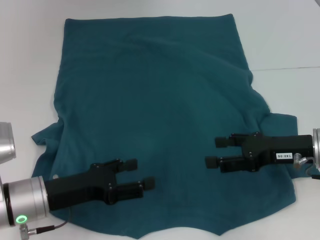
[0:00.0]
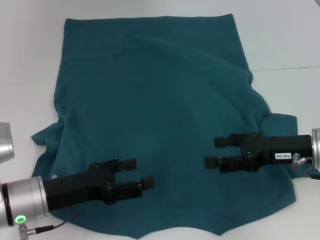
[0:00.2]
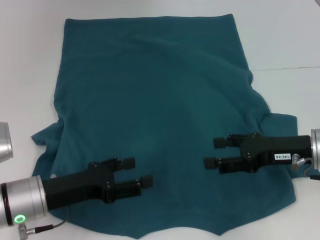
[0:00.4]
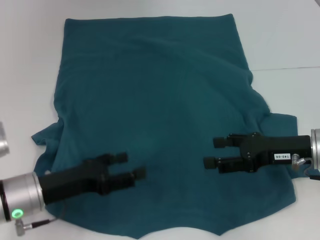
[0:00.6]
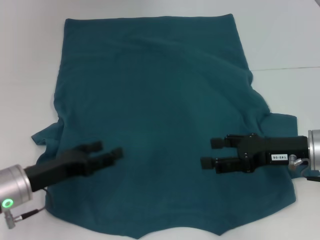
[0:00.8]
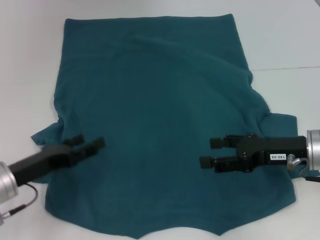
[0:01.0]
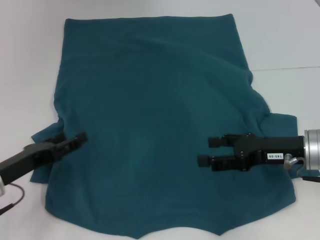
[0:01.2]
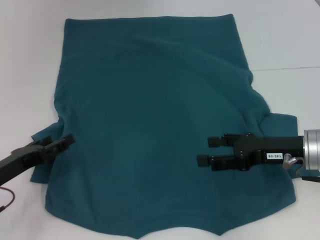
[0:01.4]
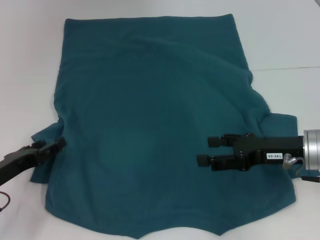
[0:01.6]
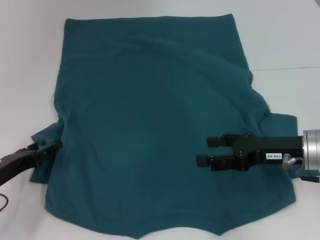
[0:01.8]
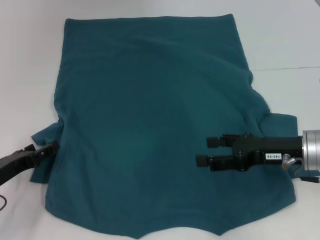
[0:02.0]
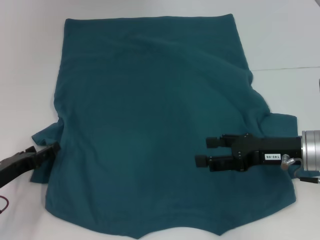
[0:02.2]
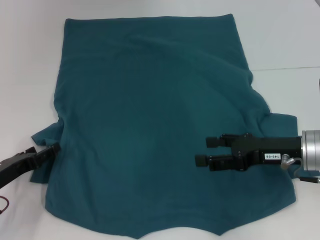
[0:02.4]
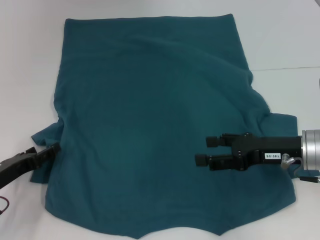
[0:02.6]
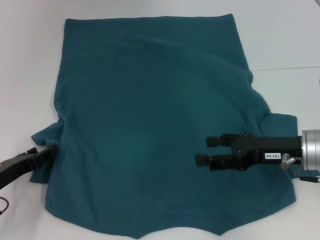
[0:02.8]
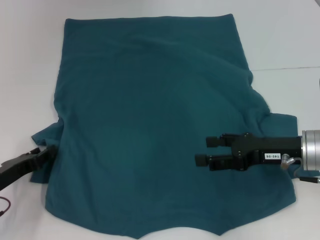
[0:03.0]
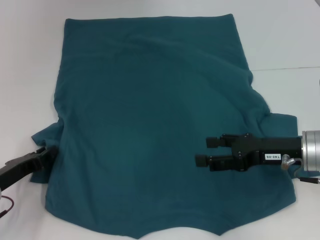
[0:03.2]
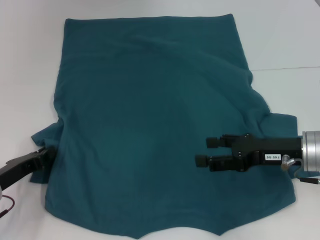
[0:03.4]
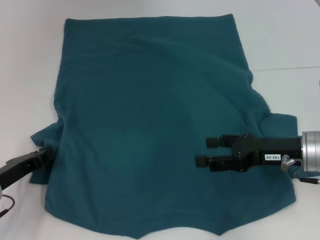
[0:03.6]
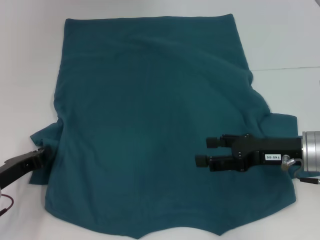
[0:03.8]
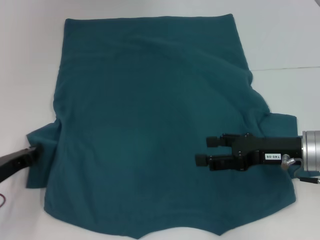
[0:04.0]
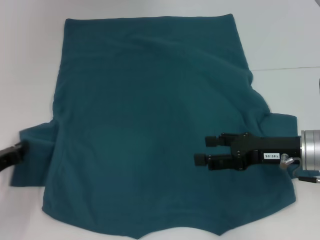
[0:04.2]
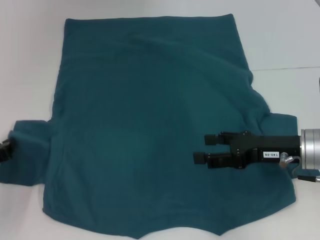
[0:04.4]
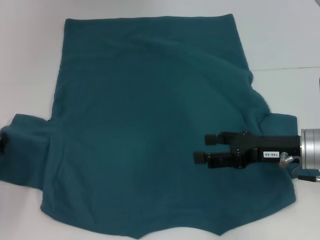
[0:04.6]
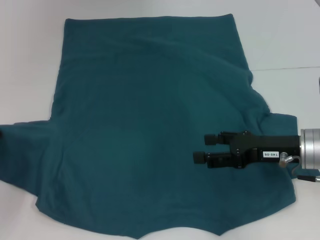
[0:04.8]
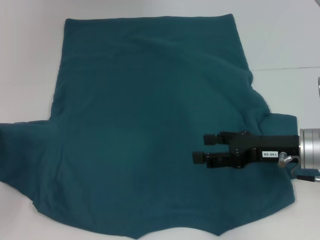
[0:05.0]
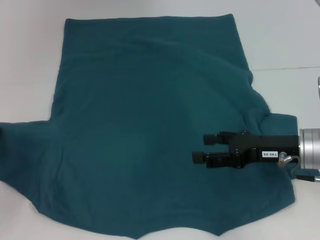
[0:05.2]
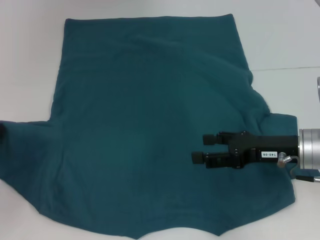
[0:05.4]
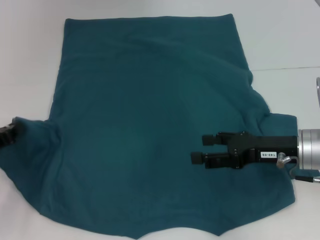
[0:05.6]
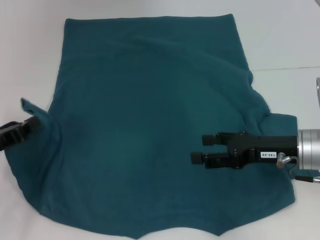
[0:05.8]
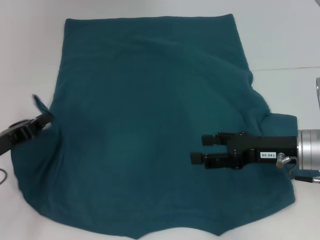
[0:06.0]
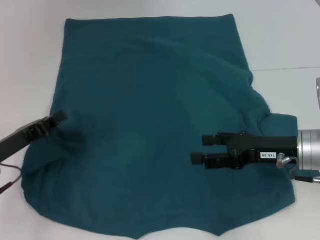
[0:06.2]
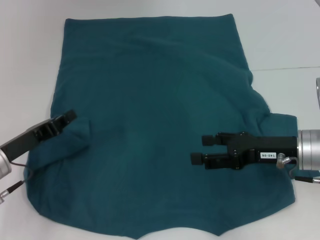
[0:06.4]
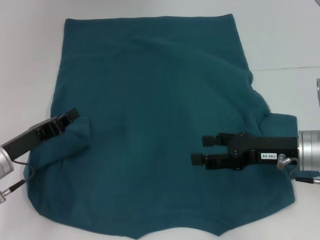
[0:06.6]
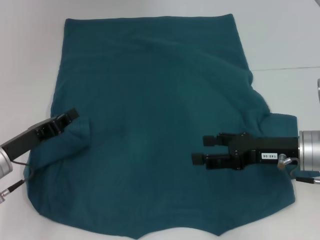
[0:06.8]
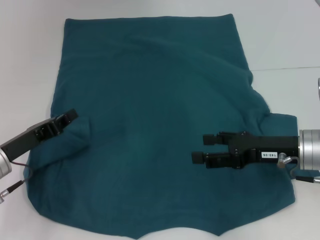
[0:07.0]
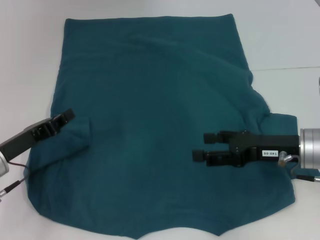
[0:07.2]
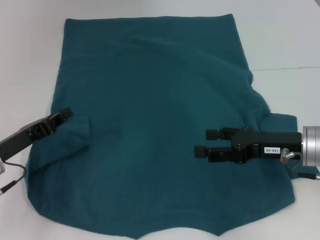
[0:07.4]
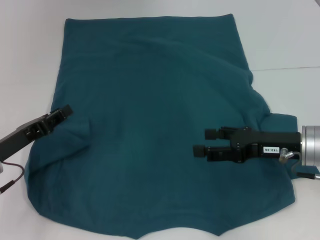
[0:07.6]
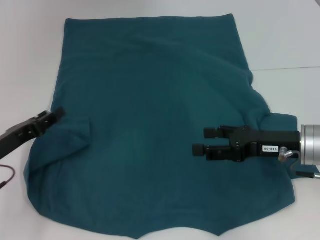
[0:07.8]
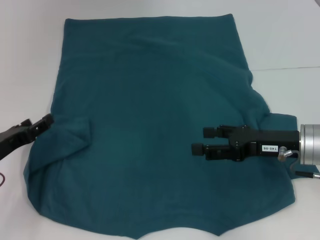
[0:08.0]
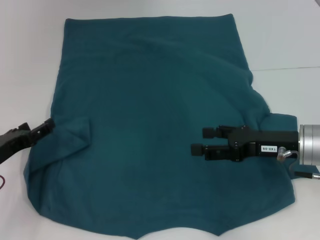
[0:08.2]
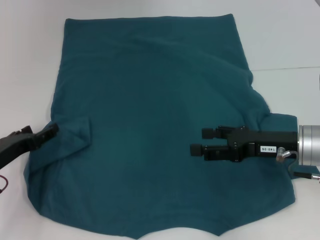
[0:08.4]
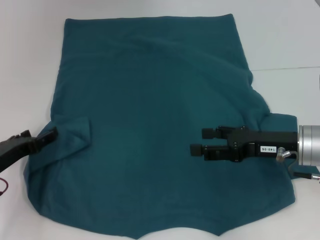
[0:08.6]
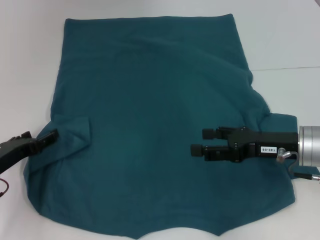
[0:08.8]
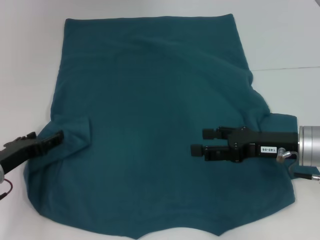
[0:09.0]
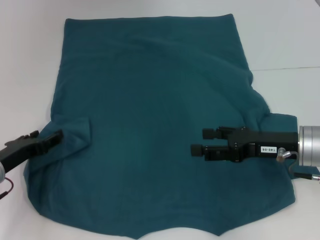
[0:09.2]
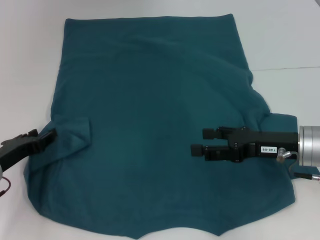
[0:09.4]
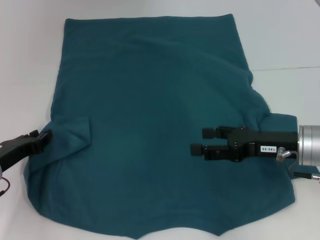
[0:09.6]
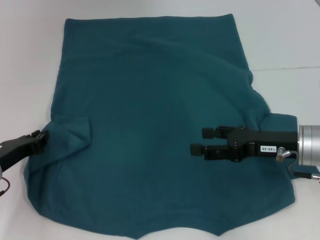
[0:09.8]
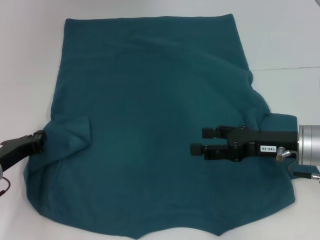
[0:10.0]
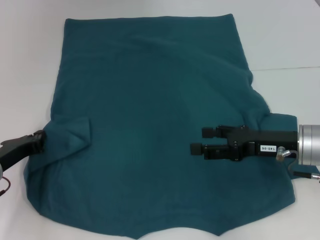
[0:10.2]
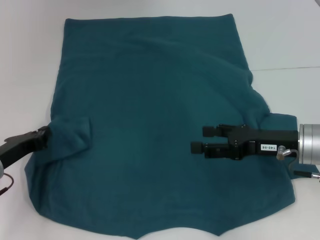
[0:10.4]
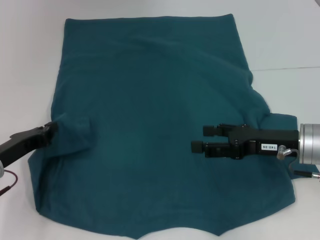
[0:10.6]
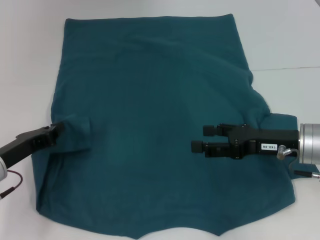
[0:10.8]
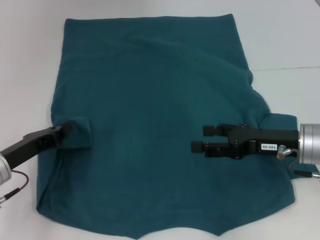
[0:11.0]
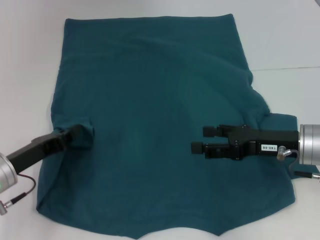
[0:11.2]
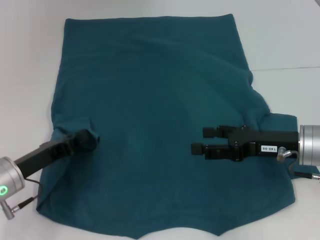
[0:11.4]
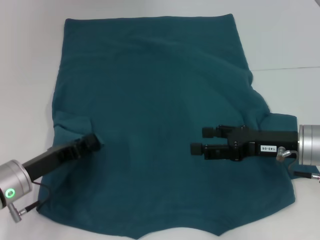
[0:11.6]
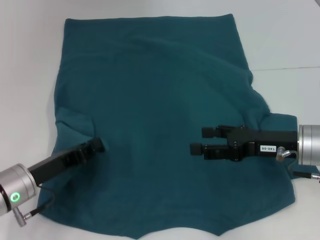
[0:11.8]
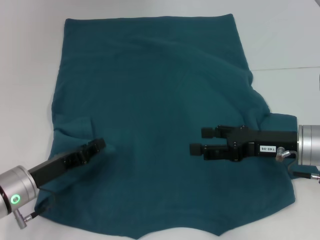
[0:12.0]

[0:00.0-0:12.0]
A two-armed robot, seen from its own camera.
0:00.0 to 0:01.6: The left gripper travels to the left by about 10 cm.
0:01.6 to 0:03.0: The grippers move only a little.
0:03.0 to 0:04.4: The left gripper closes its fingers.
0:06.0 to 0:07.6: The grippers make only small movements.
0:07.6 to 0:09.0: The left gripper opens.
0:09.0 to 0:10.4: The left gripper closes up.
0:10.4 to 0:12.0: The left gripper moves roughly 5 cm.

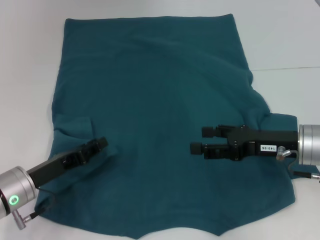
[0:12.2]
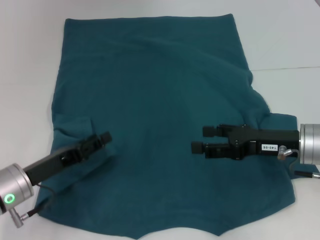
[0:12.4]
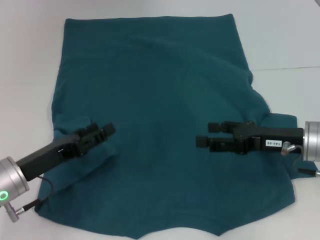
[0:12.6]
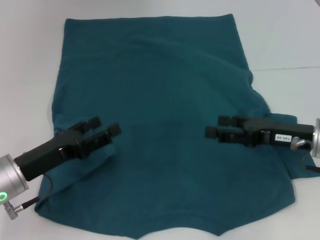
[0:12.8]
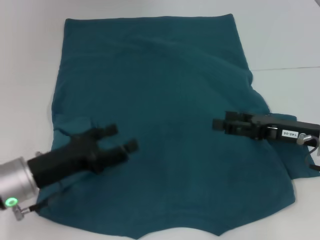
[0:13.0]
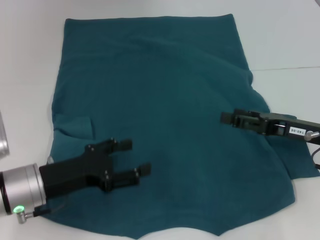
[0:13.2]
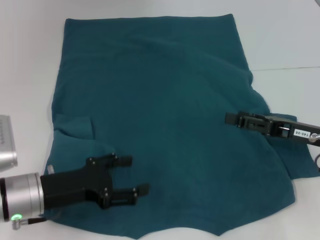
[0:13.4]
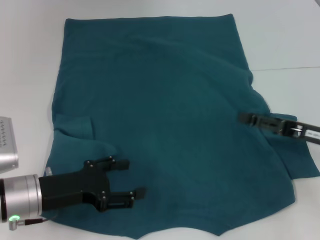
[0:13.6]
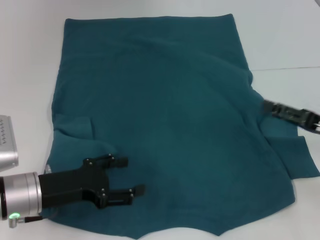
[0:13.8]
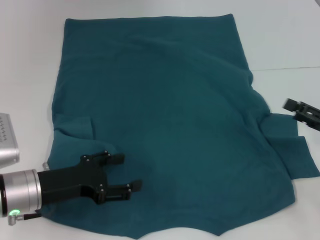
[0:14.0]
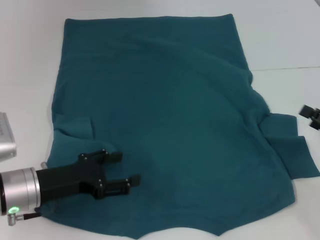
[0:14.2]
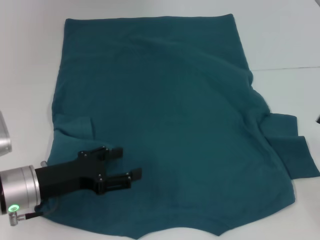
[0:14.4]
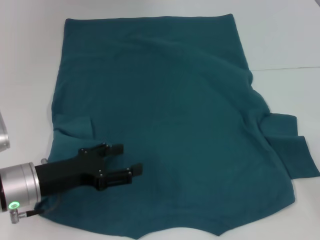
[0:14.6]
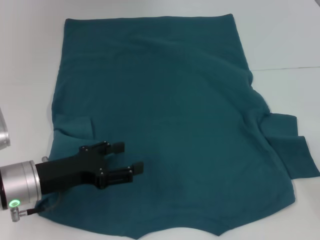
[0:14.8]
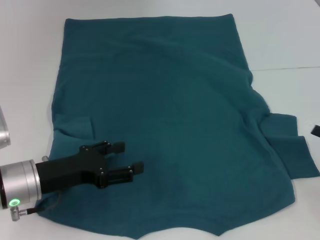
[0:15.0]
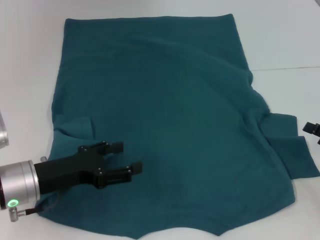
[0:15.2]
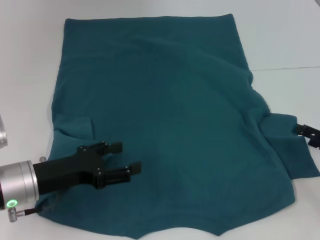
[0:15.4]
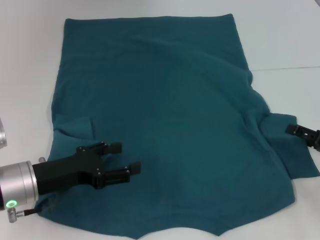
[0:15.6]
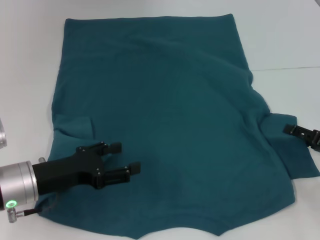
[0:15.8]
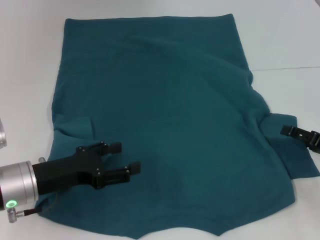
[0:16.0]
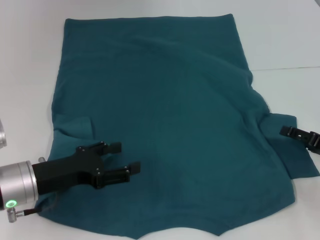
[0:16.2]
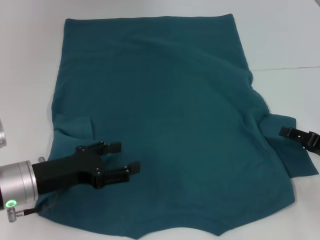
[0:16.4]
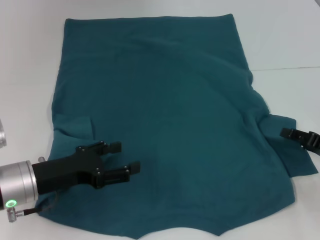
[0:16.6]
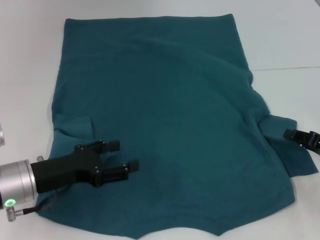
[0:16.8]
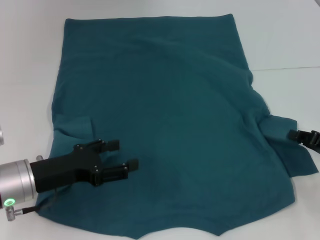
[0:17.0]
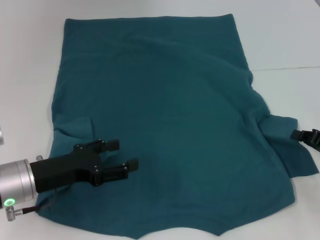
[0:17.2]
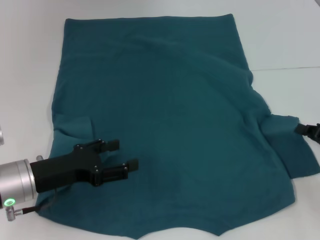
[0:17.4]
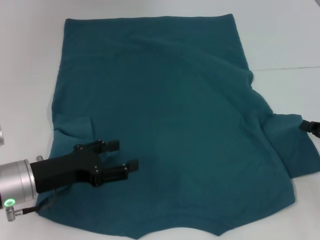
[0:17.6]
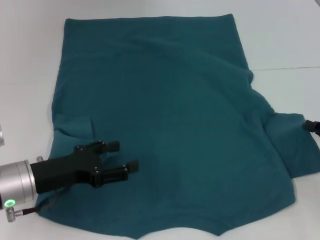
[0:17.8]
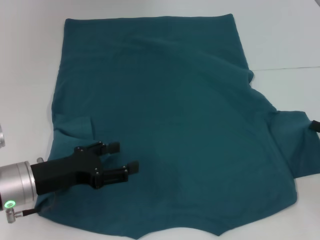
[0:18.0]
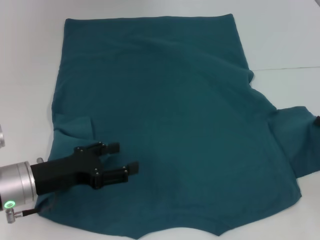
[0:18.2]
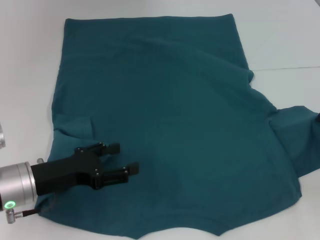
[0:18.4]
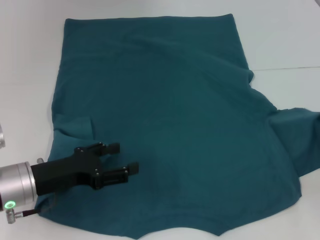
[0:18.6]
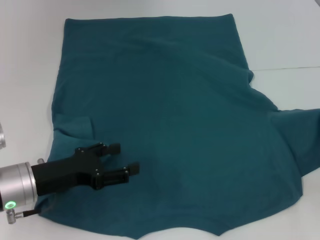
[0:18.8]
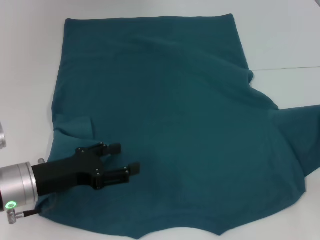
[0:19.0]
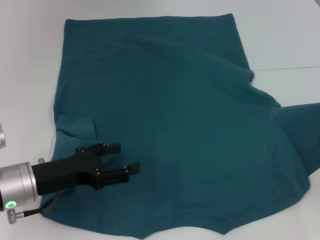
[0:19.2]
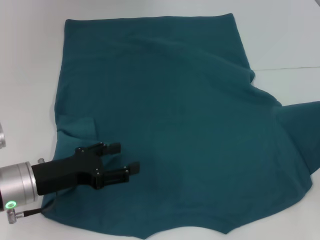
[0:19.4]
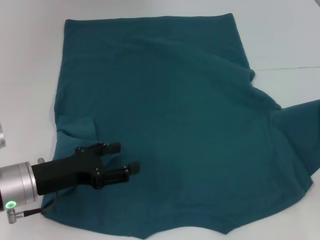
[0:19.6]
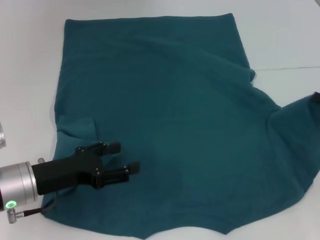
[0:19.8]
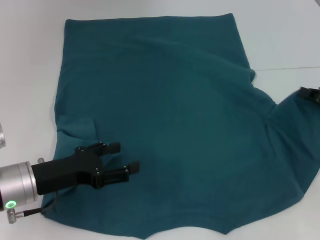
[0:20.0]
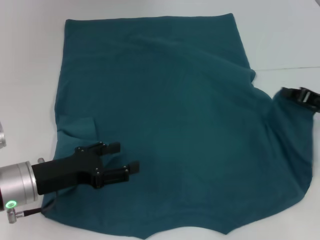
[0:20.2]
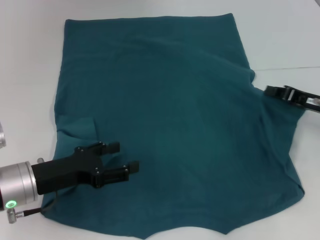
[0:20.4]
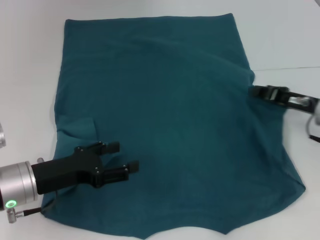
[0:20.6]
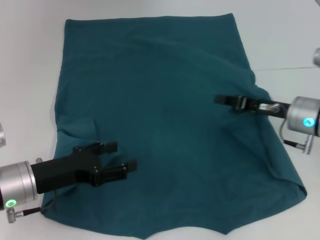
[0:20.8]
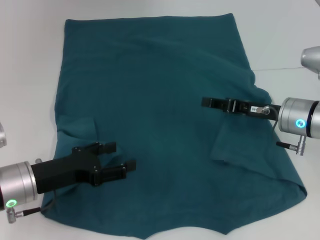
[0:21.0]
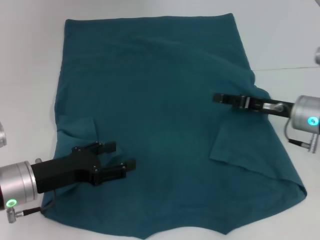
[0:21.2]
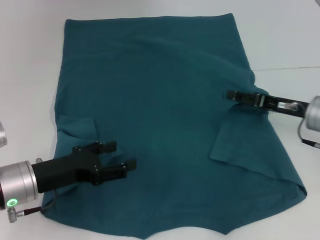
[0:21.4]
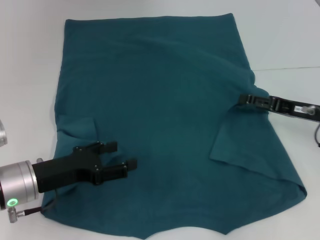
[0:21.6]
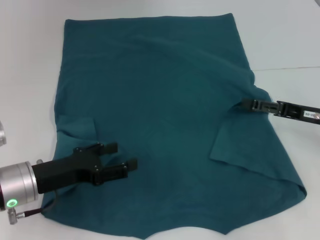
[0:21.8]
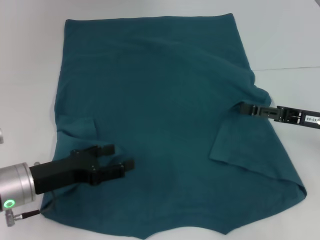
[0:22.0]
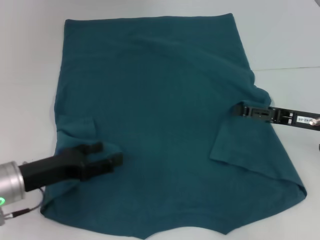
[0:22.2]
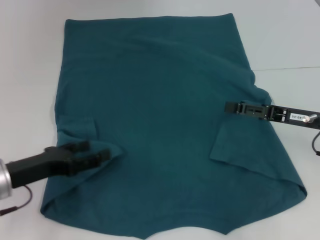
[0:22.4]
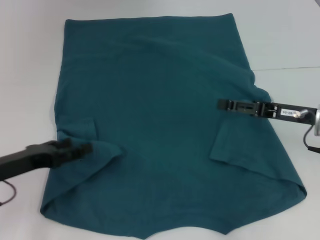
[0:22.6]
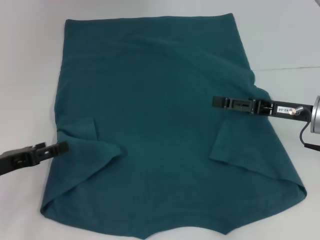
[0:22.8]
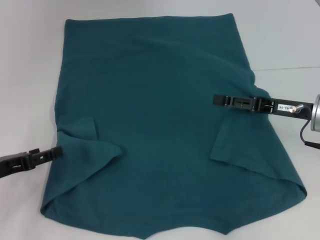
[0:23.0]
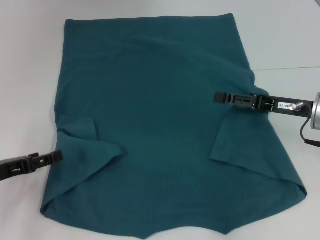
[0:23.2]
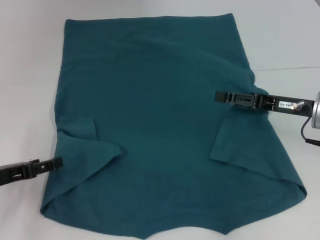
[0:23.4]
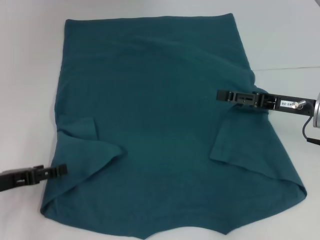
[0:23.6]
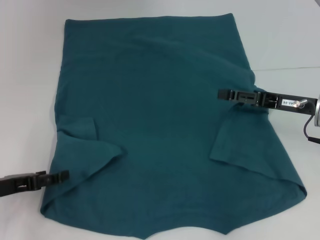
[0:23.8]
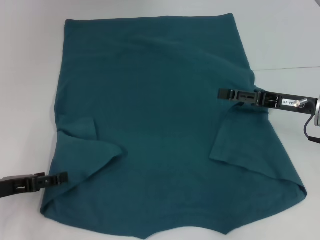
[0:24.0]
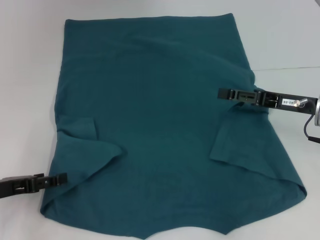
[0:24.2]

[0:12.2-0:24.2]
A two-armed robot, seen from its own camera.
Step, 0:12.4 to 0:21.2: Fold the bottom right sleeve to the right.
0:12.2 to 0:13.8: The left gripper opens its fingers; the right gripper travels to the right by some 10 cm.
0:13.8 to 0:15.2: The right gripper moves to the right, some 5 cm.
0:15.2 to 0:16.6: The grippers make only small movements.
0:16.6 to 0:18.2: The right gripper closes up.
0:18.2 to 0:19.8: The grippers stay close to where they were, moving slightly.
0:19.8 to 0:21.2: The right gripper goes some 10 cm to the left, and opens.
0:21.2 to 0:22.6: The right gripper opens, while the left gripper moves to the left, roughly 5 cm.
0:22.6 to 0:24.2: There are only small adjustments of the grippers.
